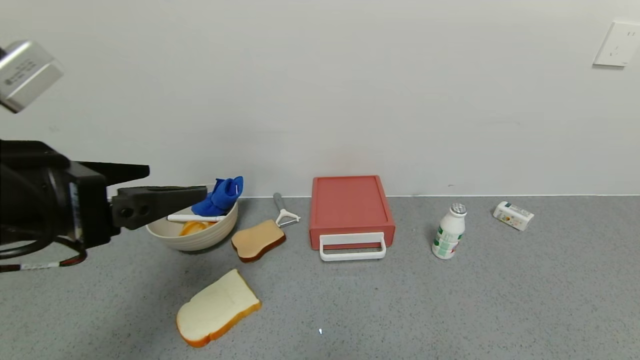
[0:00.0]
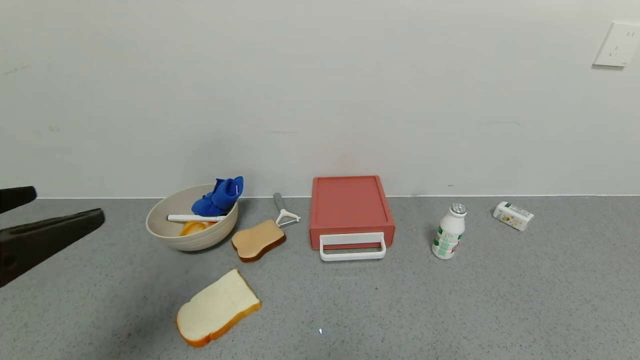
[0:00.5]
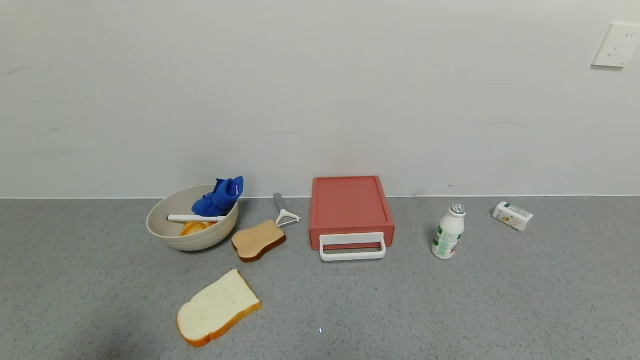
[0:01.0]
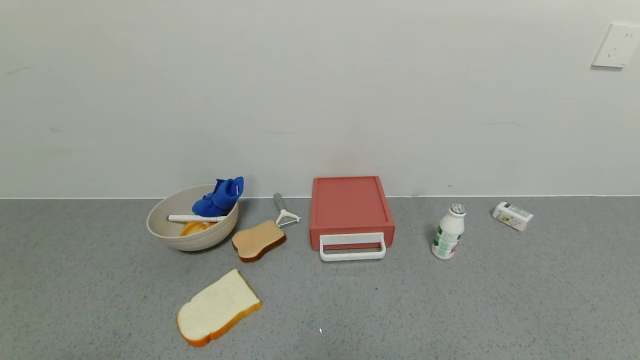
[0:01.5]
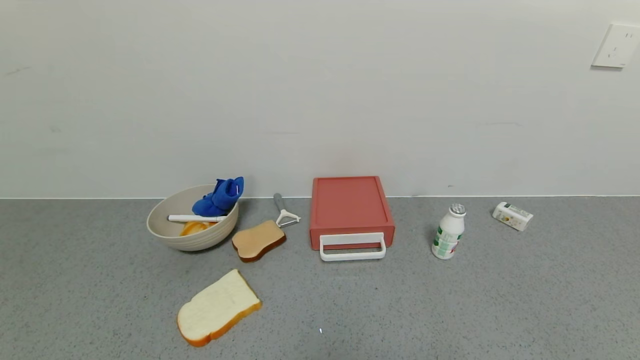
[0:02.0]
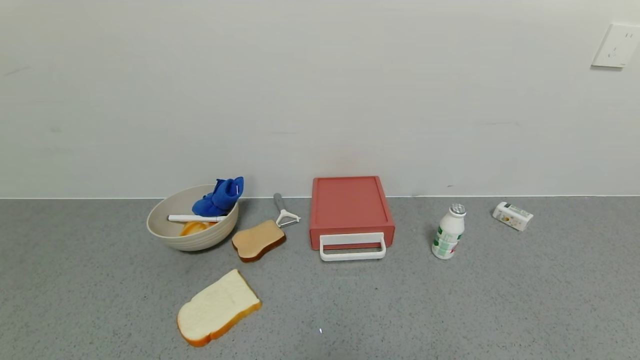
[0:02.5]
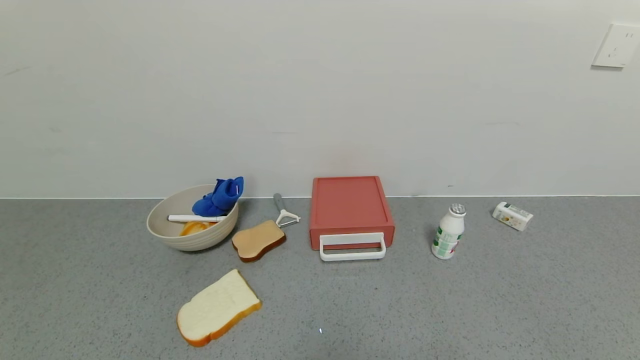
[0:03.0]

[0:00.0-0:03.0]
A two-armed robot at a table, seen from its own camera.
Task of the whole recording: use the gripper to open the drawer and close the red drawer.
0:00.0 to 0:01.5: The left gripper moves backward, roughly 20 cm.
